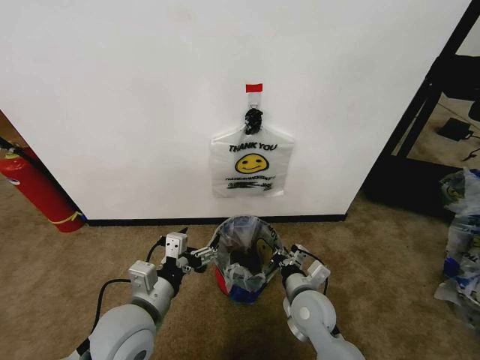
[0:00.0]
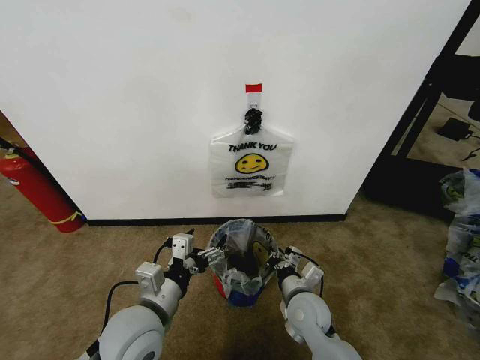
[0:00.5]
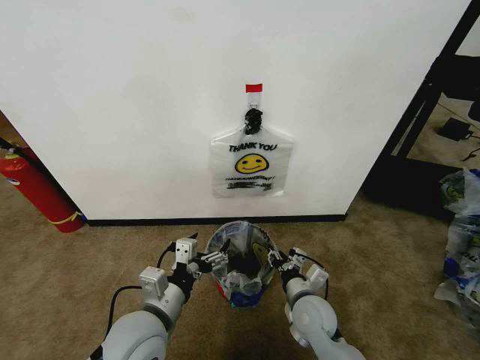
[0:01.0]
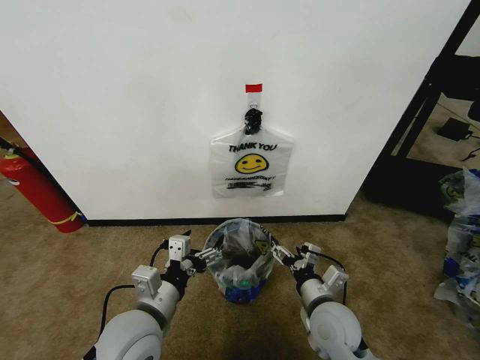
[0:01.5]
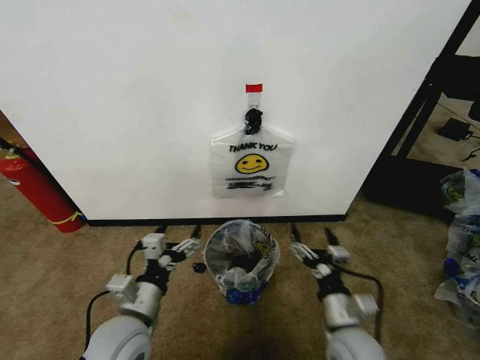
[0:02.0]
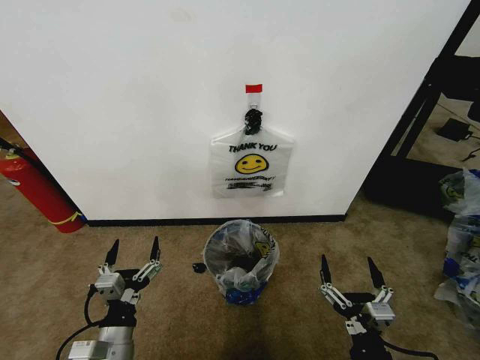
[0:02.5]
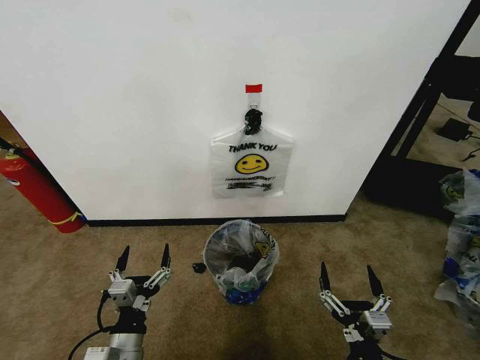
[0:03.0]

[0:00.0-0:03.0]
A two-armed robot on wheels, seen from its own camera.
Task of the whole recording: Pick up the garbage bag from the wall and place it over the trash bin.
0:00.0 to 0:01.5: The right gripper moves roughly 5 cm, and opens up.
0:01.5 to 0:03.0: The right gripper travels backward by roughly 15 cm. Meanwhile the left gripper moves downward and backward, roughly 15 cm.

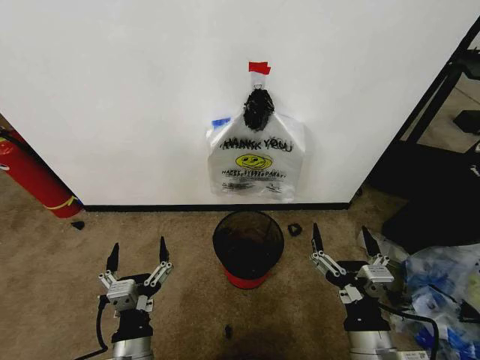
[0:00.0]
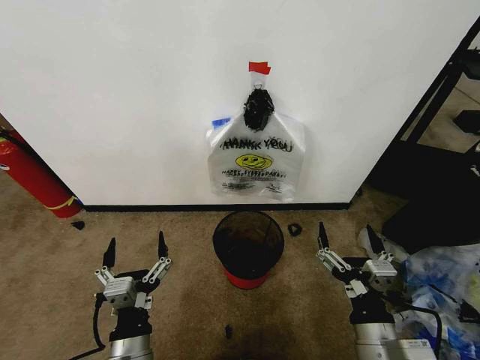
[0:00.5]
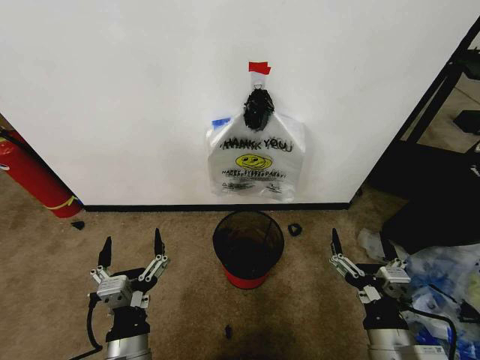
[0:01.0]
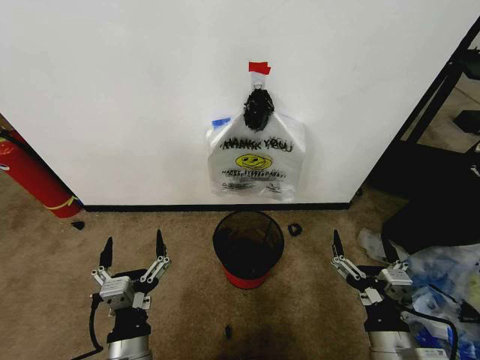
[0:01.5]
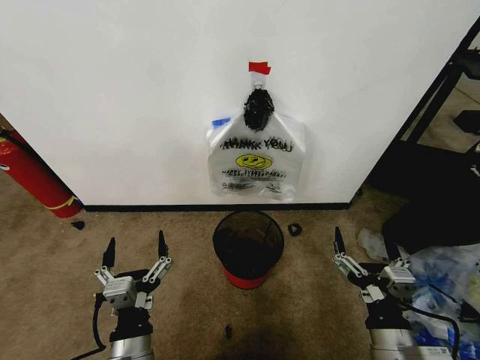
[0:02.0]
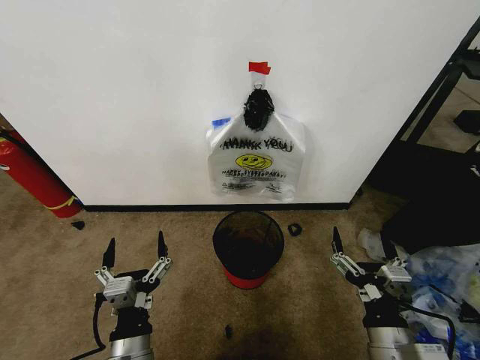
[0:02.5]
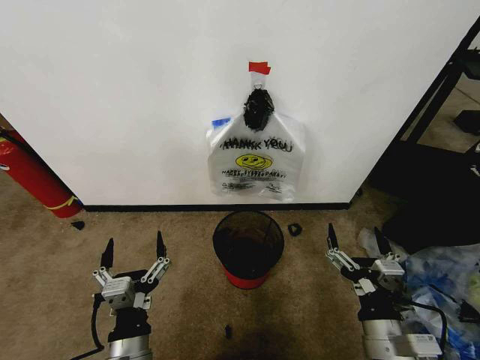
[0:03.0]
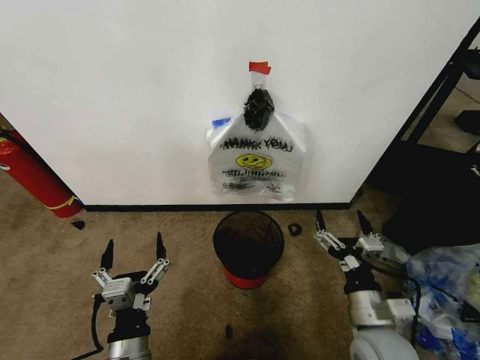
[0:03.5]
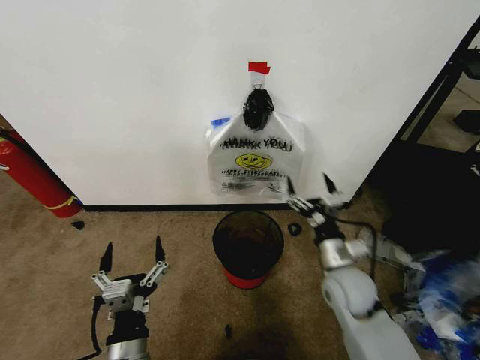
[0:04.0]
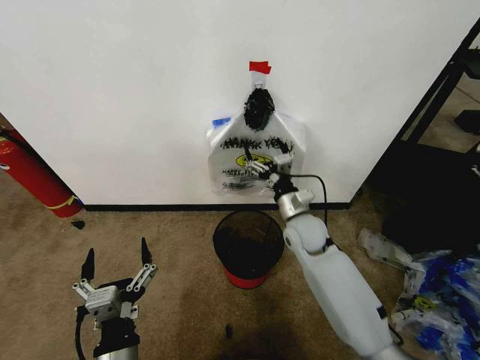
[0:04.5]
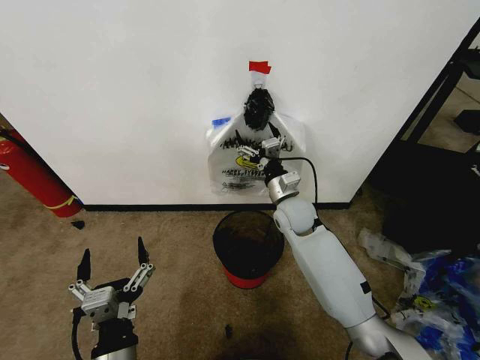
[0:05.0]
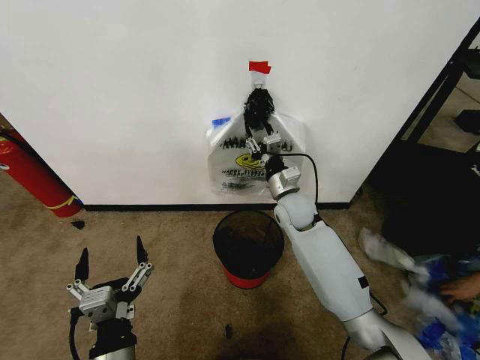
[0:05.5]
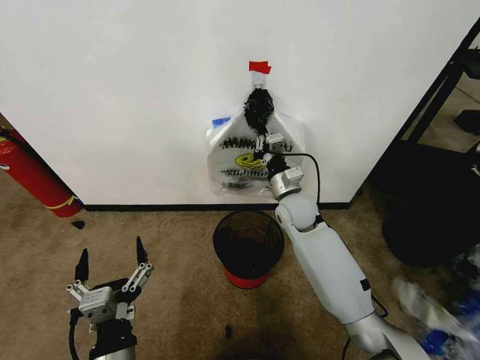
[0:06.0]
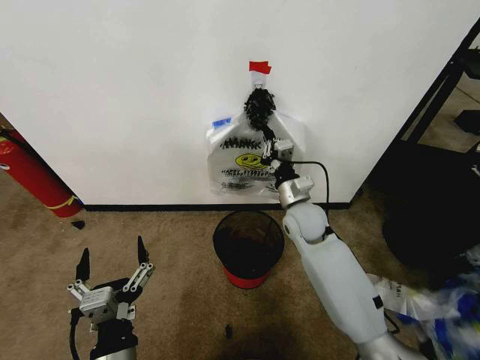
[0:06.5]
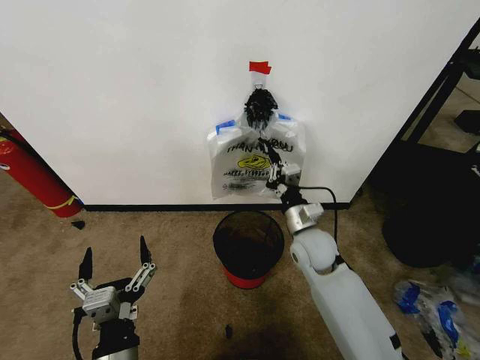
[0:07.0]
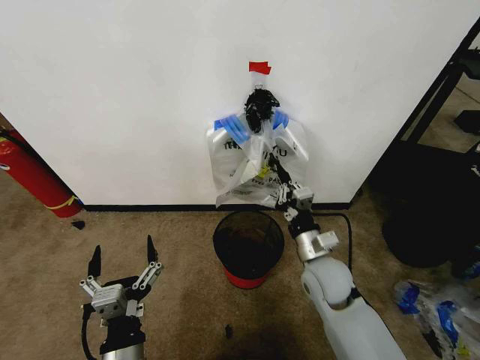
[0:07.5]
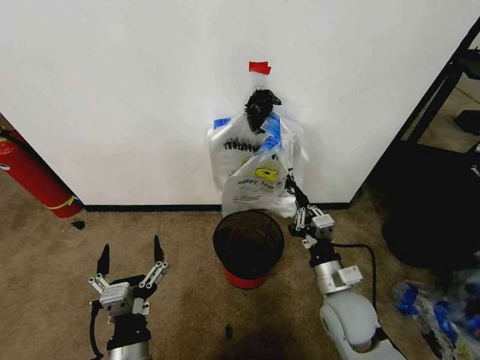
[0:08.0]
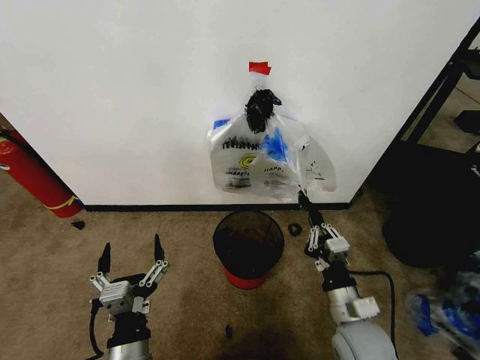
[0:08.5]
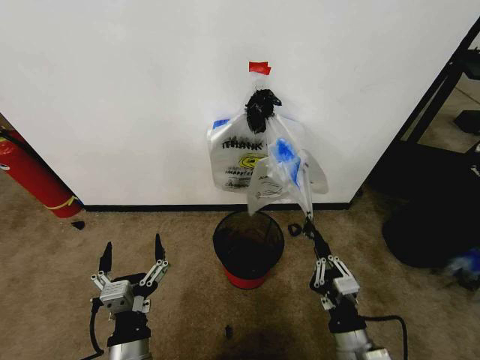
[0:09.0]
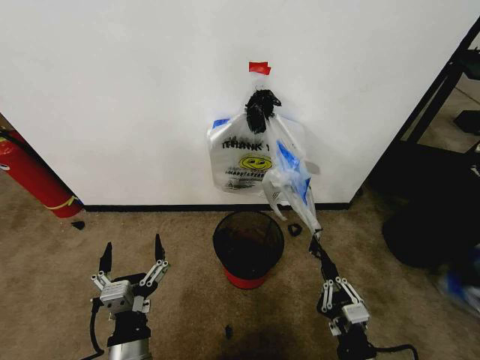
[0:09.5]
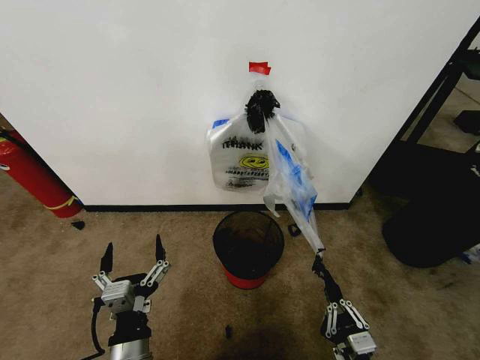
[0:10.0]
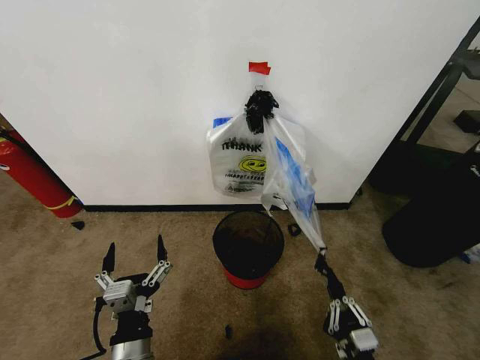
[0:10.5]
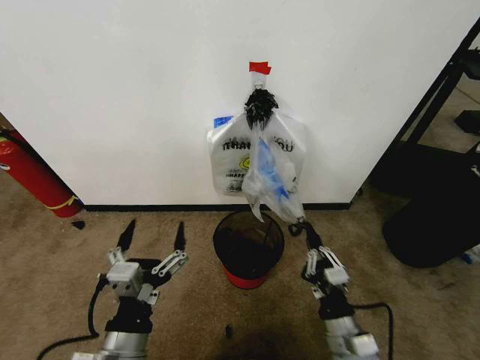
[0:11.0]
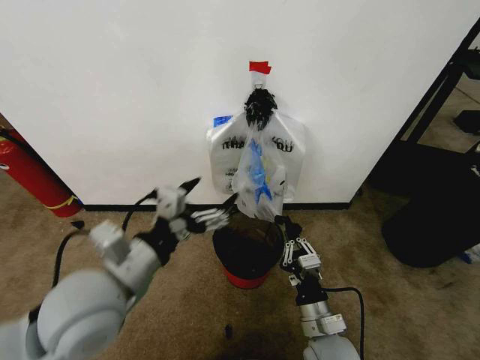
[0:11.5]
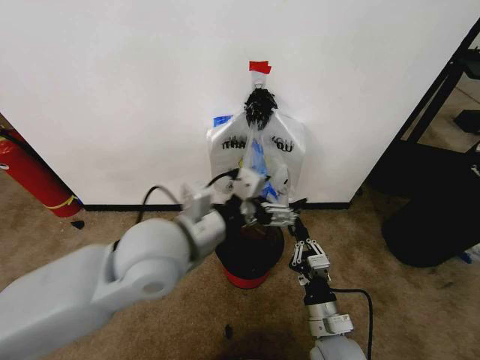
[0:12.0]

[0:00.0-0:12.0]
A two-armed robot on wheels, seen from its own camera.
Task of the whole recording: Pick up the garbage bag from the wall and place it over the trash bin.
0:02.0 to 0:04.0: The right gripper goes approximately 20 cm forward.
0:04.0 to 0:06.0: The right gripper heads forward and to the left, covering roughly 20 cm, and closes its fingers.
0:06.0 to 0:08.0: The right gripper is displaced backward by roughly 20 cm.
0:08.0 to 0:10.0: The right gripper is displaced backward and downward by some 20 cm.
0:10.0 to 0:12.0: The right gripper travels forward and to the left by approximately 15 cm. Meanwhile the left gripper travels upward and forward by roughly 25 cm.

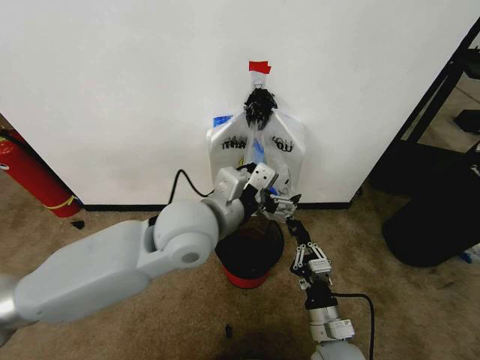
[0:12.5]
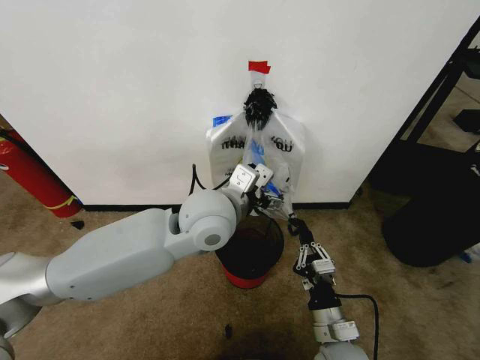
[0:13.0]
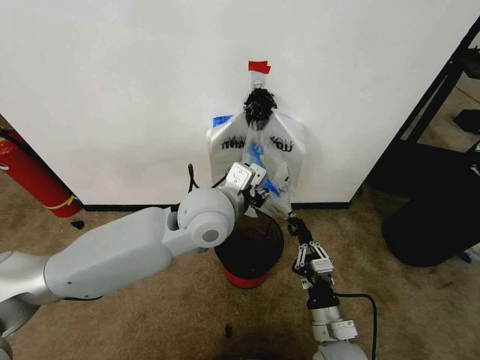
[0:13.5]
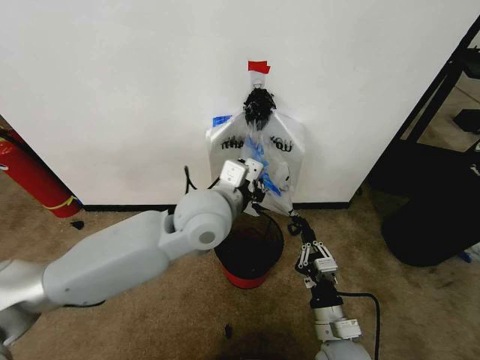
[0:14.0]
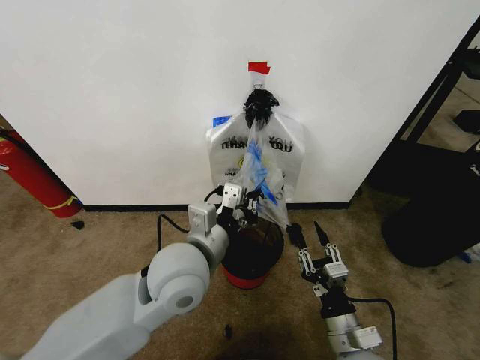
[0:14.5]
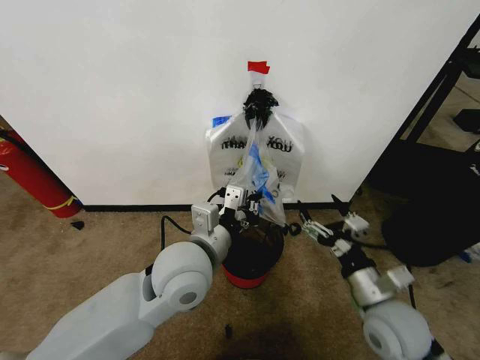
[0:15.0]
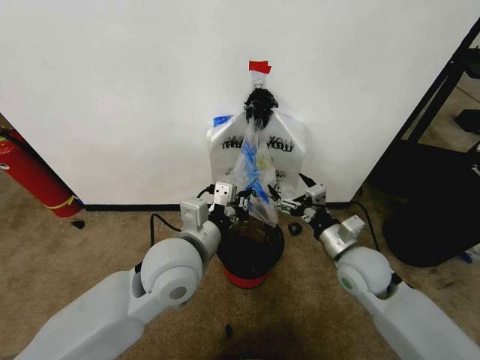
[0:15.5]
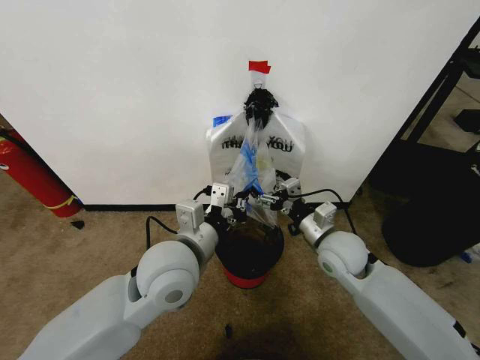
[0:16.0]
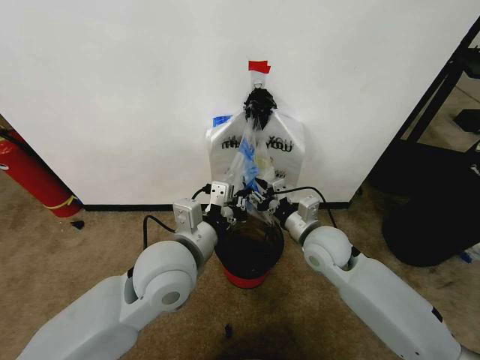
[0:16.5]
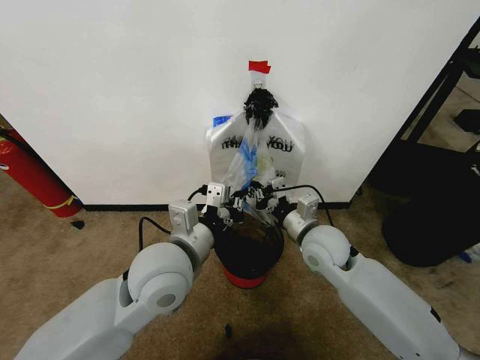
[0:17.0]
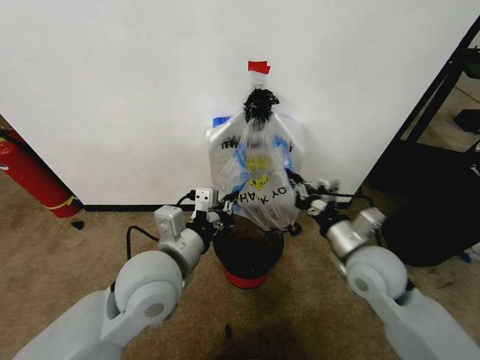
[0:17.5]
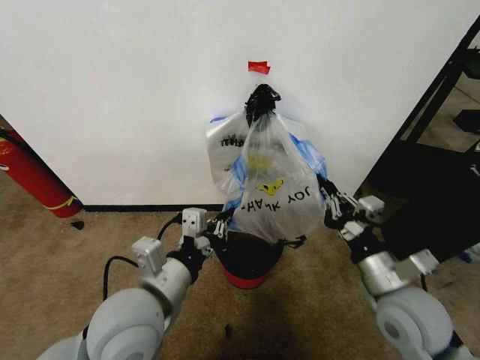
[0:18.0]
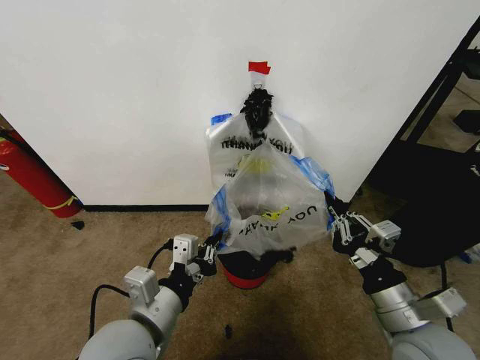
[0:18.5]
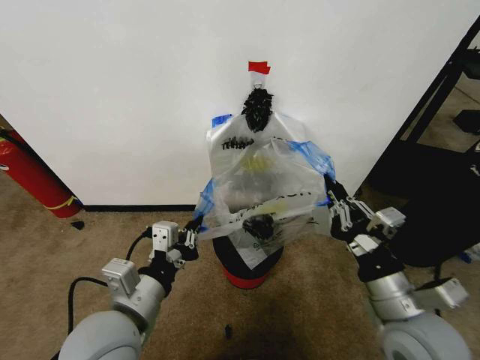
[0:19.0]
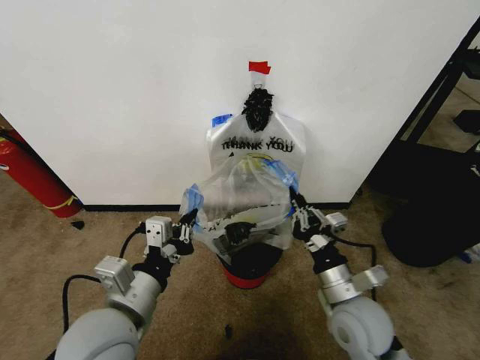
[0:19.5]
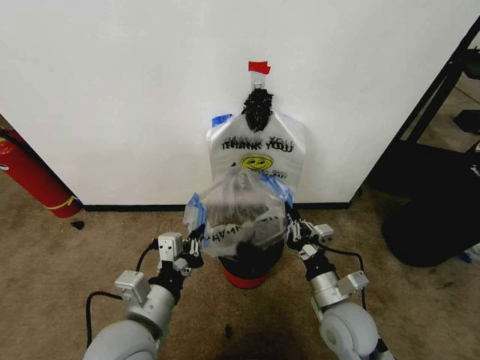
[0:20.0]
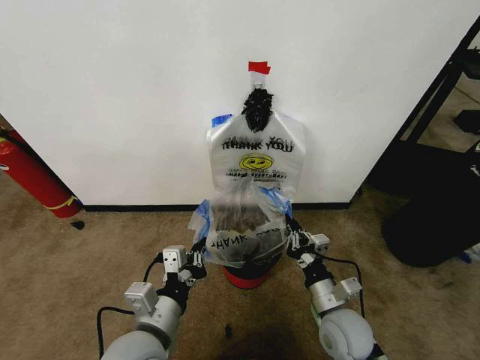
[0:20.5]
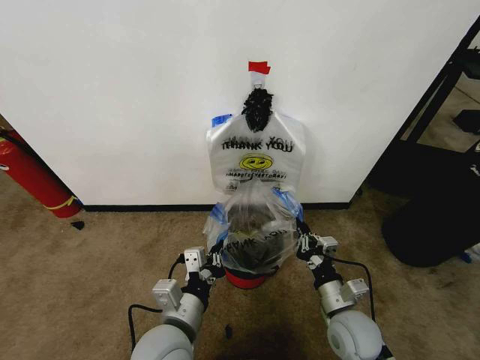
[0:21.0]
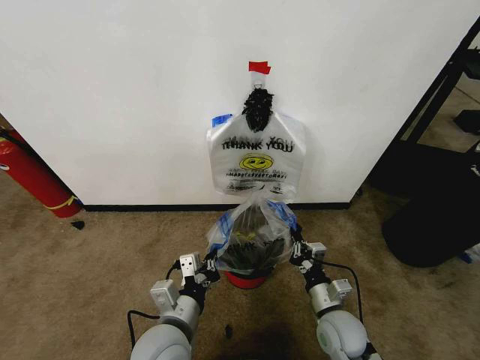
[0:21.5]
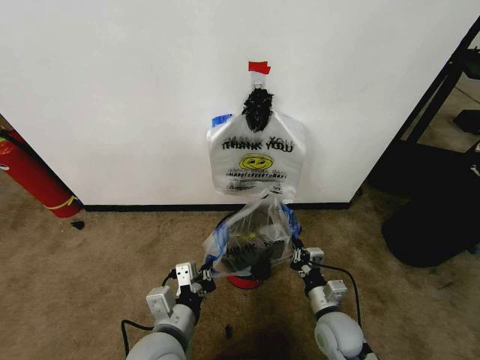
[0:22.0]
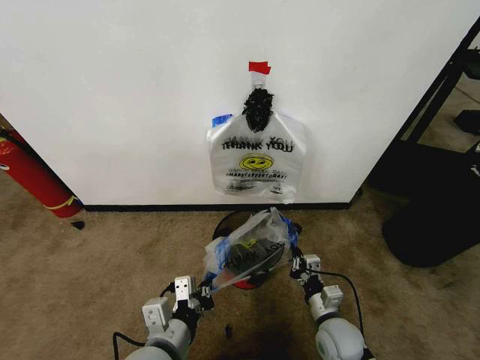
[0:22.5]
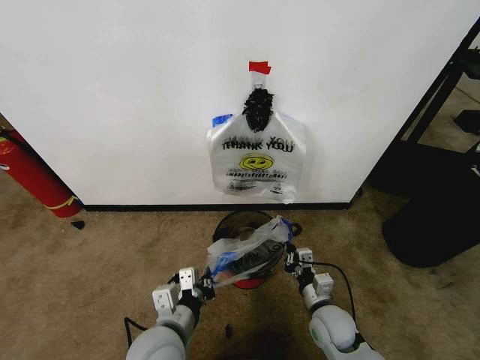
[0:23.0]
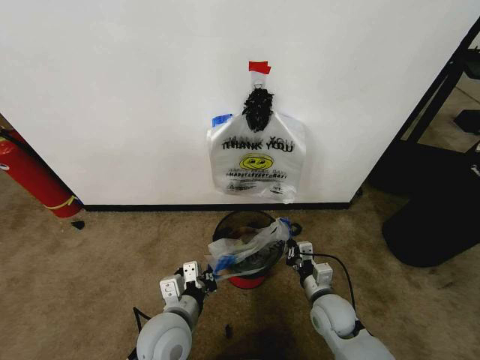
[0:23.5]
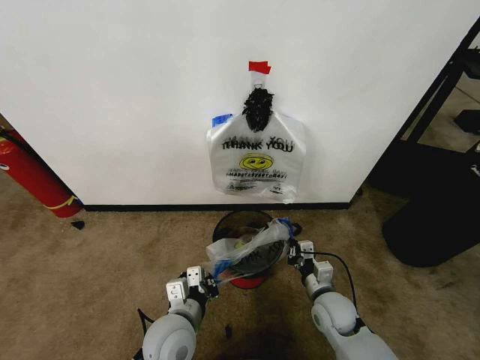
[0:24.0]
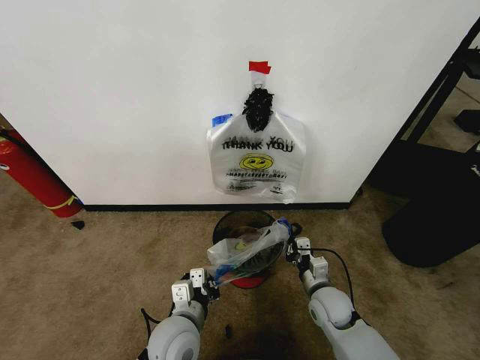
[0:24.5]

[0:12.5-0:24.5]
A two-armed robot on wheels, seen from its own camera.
Task of the whole recording: Pick up the garbage bag from the wall and place it over the trash bin.
0:12.5 to 0:14.5: The left gripper moves downward, some 5 cm, and closes its fingers. The right gripper opens up.
0:14.5 to 0:16.5: The right gripper goes some 25 cm forward and upward, and opens, then closes again.
0:16.5 to 0:18.5: The right gripper goes about 20 cm backward and to the right, and closes up. Meanwhile the left gripper shifts some 10 cm backward.
0:18.5 to 0:20.5: The right gripper moves downward, to the left and forward, some 15 cm. The left gripper shifts about 5 cm downward.
0:20.5 to 0:22.5: The right gripper travels downward by approximately 10 cm.
0:22.5 to 0:24.5: The left gripper travels forward and downward by about 10 cm; the right gripper travels forward by about 5 cm.
